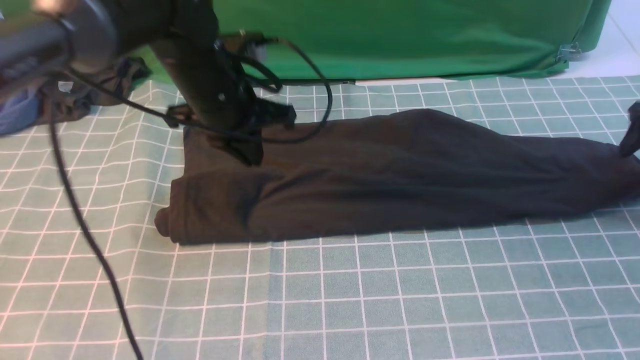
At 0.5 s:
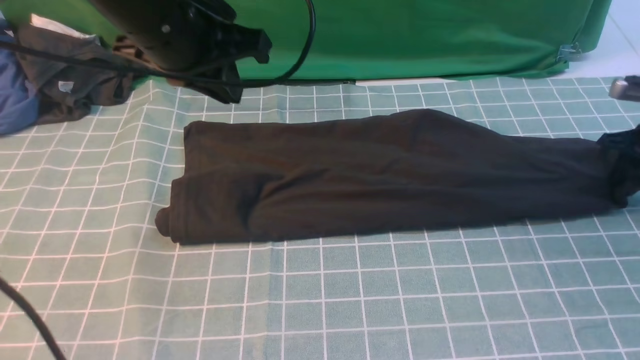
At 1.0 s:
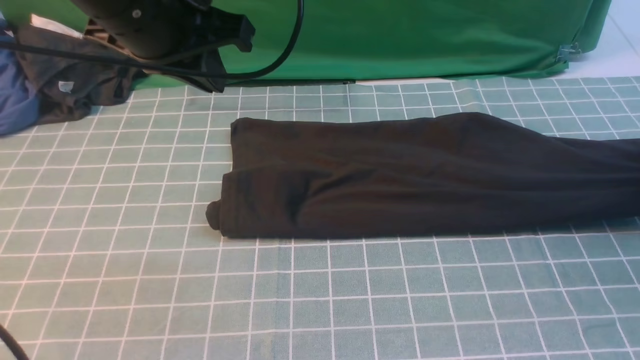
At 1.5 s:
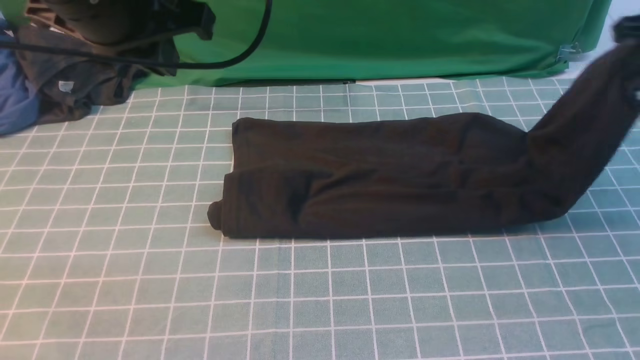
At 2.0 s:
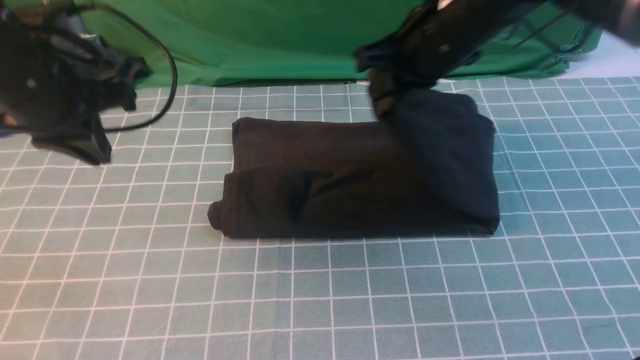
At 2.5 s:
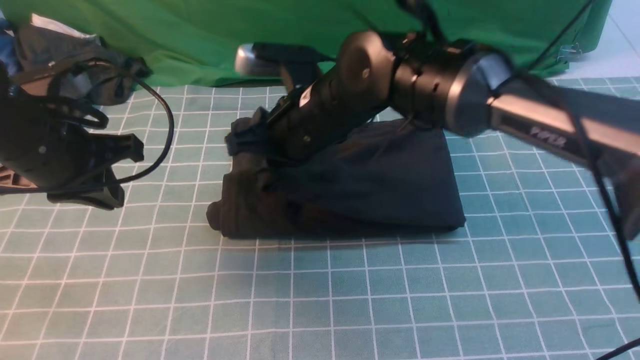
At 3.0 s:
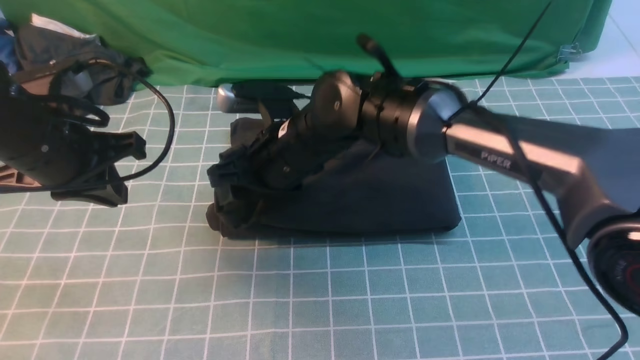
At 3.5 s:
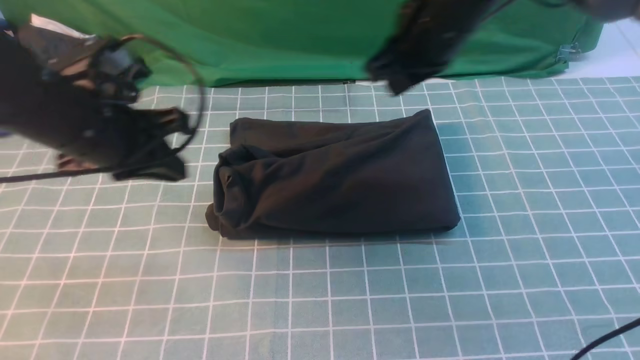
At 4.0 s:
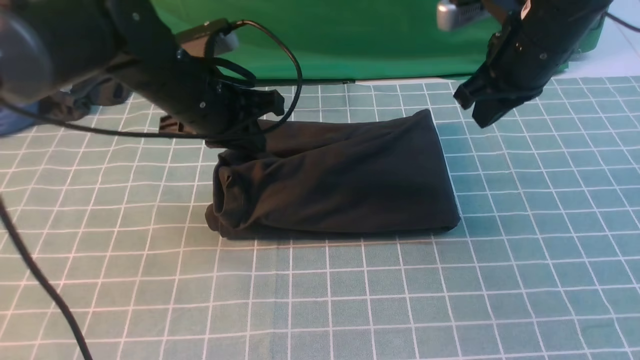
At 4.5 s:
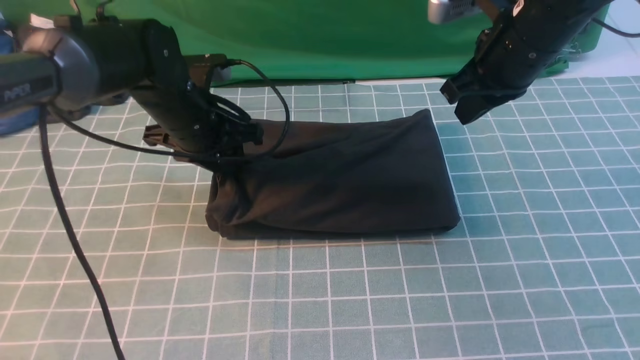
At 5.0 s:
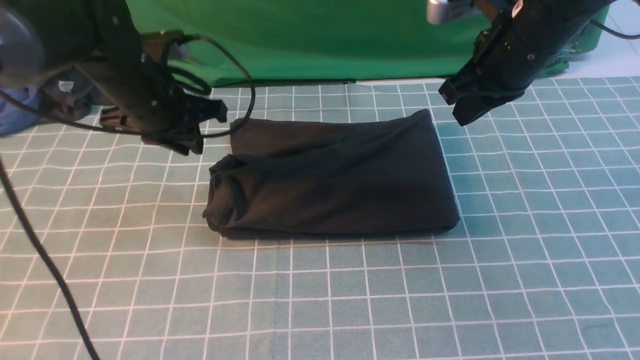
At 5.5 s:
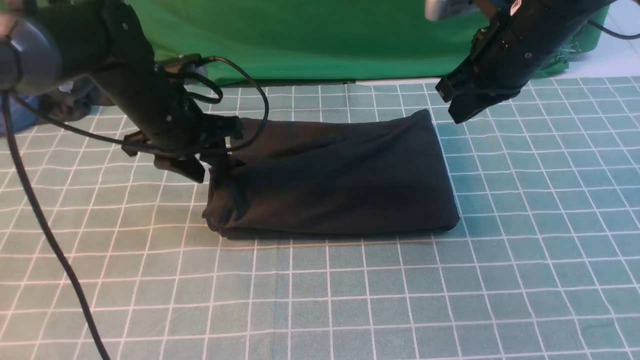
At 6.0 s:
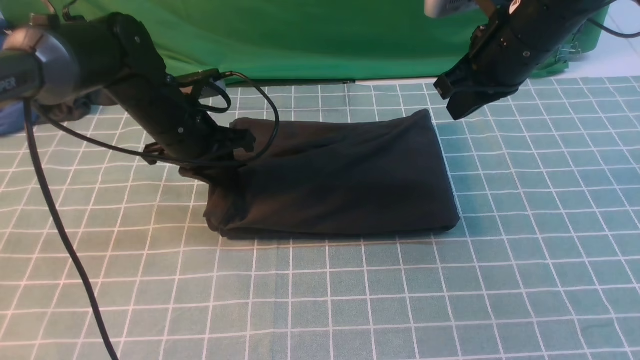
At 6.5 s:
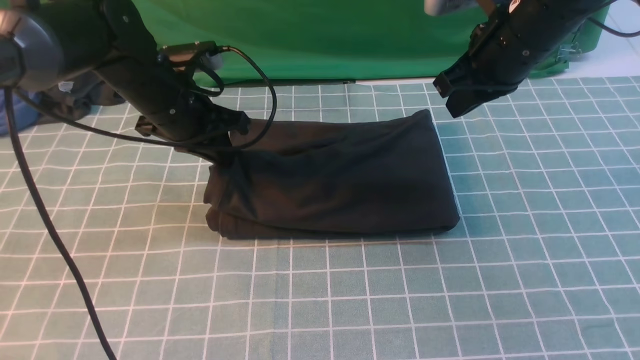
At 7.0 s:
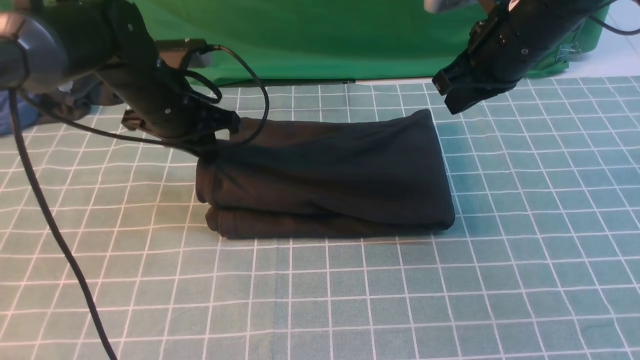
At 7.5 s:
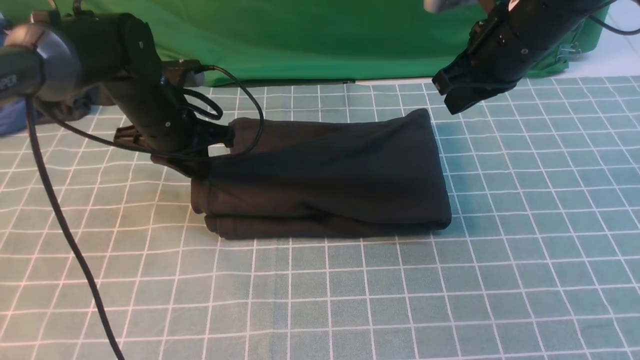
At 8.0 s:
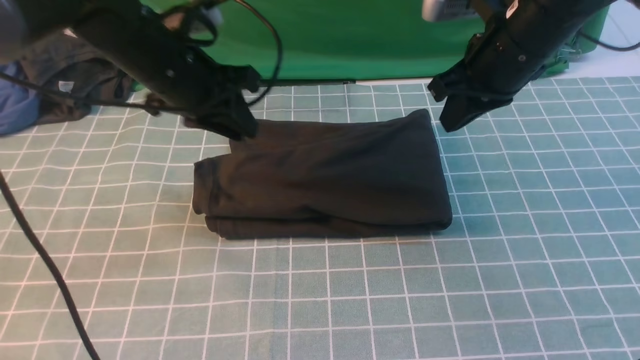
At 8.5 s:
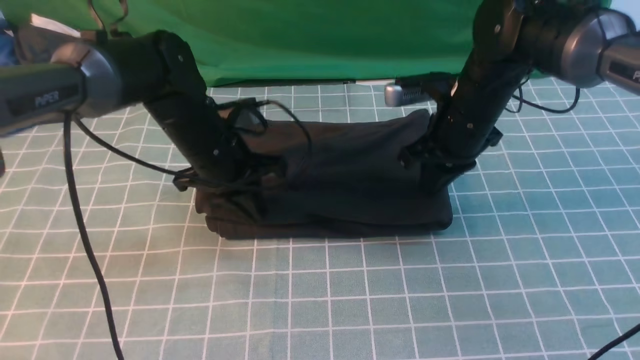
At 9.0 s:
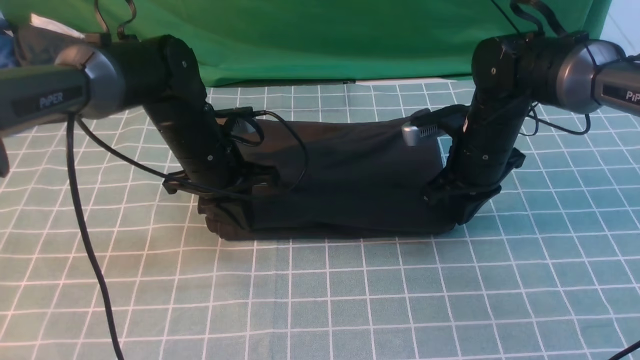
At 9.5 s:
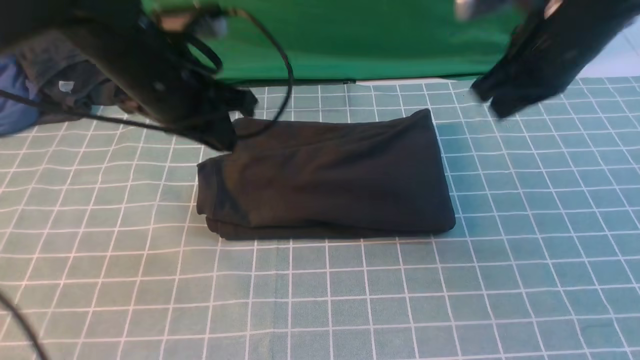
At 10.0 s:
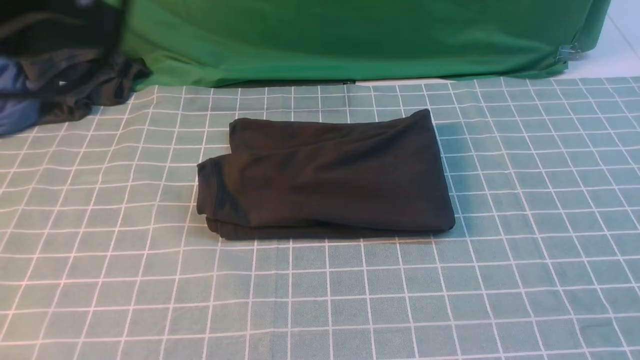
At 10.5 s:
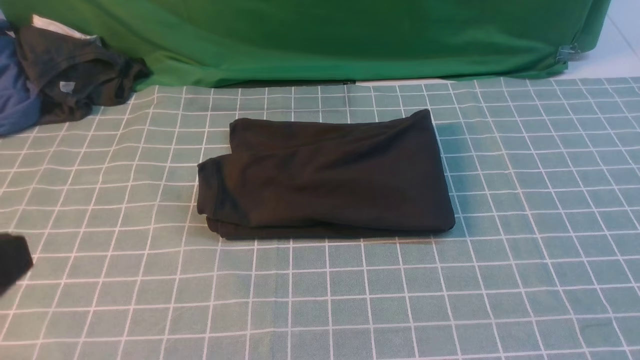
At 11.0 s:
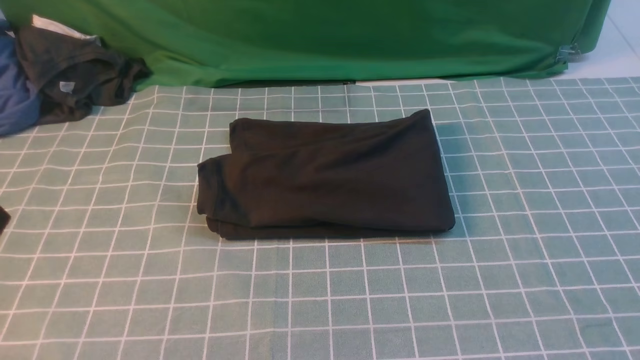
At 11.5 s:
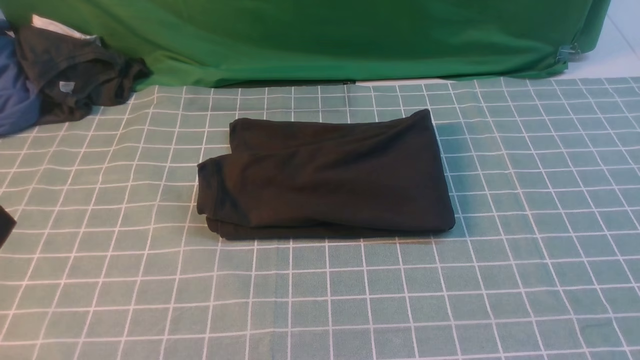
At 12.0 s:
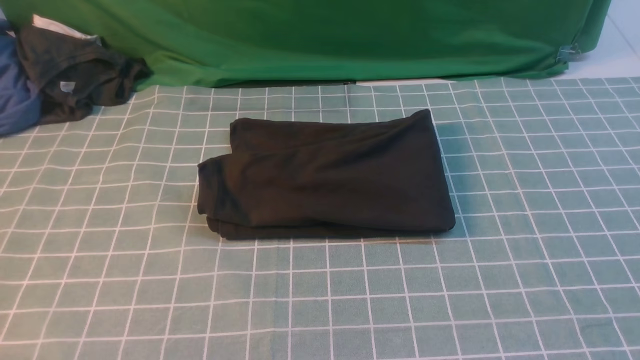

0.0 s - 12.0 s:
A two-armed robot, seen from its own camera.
Step, 1.0 s - 3.0 s: use the right arm to drag the right edge of the fabric to the left and folds it over the left edge.
0.0 s - 2.0 s: The left gripper moves to the left and backward, about 15 cm. The right gripper goes approximately 35 cm to the left, and closes up.
2.0 s - 4.0 s: The left gripper moves to the right, downward and forward, about 15 cm. The right gripper moves to the right, about 10 cm, and opens, then closes again.
4.0 s - 6.0 s: The left gripper moves downward, approximately 5 cm, and opens and closes again.
6.0 s - 8.0 s: The left gripper is displaced upward by about 5 cm.
8.0 s - 10.0 s: The right gripper travels backward, upward and to the right by roughly 35 cm, while the left gripper travels backward and upward by approximately 30 cm.
10.0 s - 12.0 s: The left gripper shifts approximately 20 cm downward and backward.

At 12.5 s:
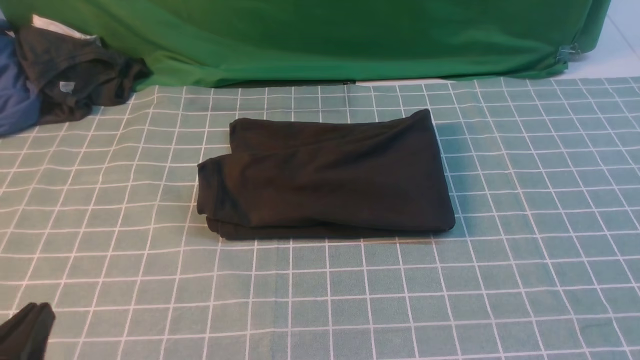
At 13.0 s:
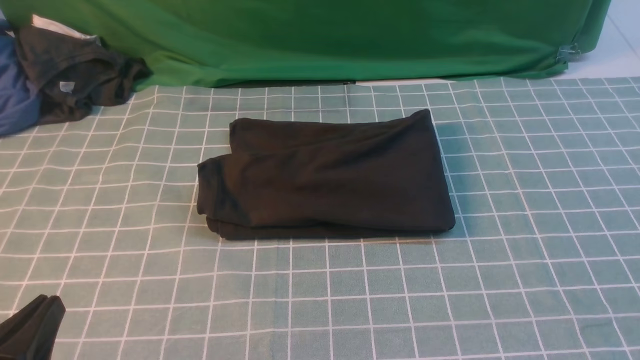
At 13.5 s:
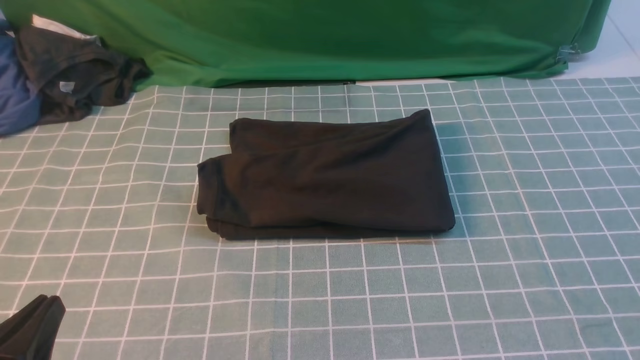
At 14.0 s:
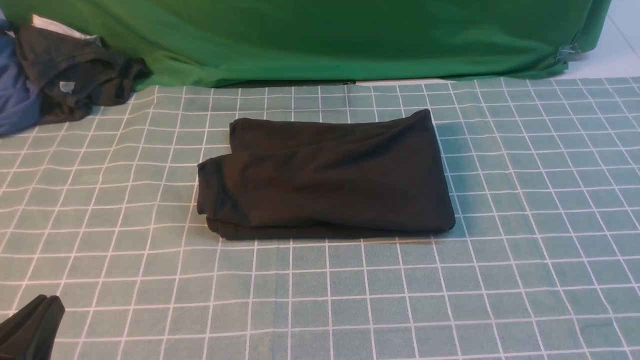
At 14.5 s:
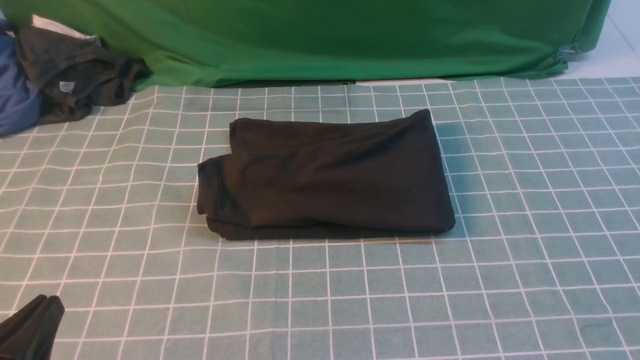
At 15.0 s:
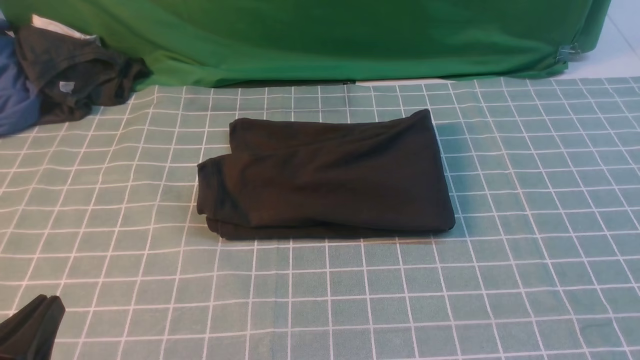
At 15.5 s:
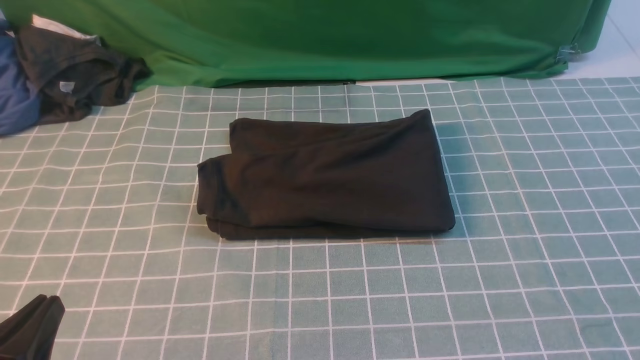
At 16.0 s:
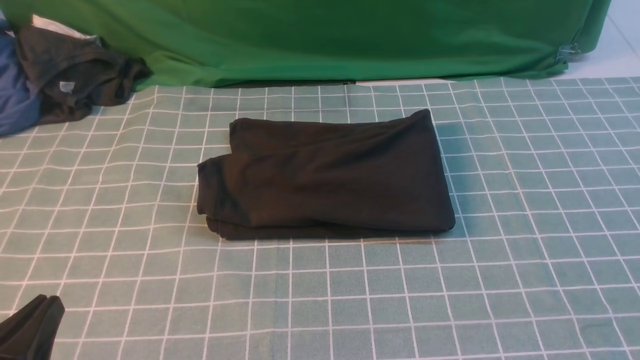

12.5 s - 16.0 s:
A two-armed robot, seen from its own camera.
14.5 s - 16.0 s: Both grippers stay put.
